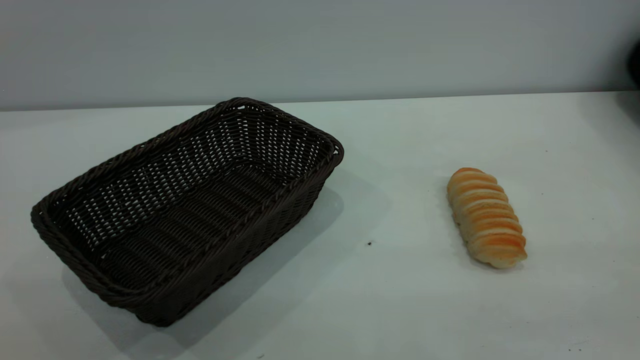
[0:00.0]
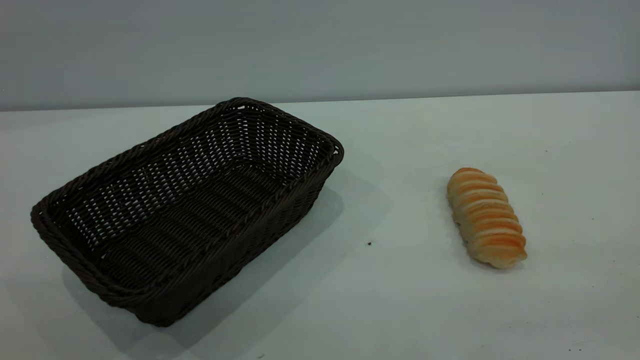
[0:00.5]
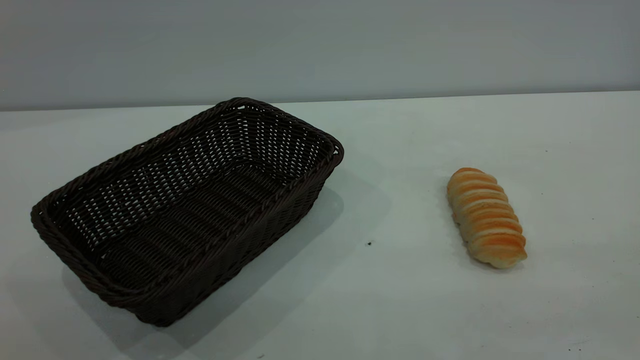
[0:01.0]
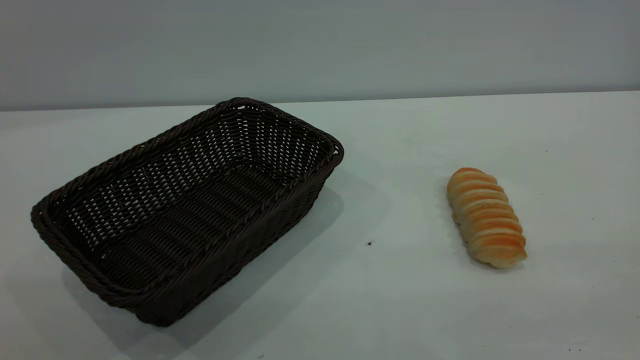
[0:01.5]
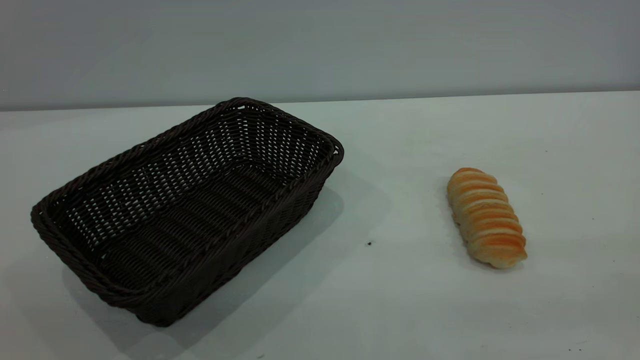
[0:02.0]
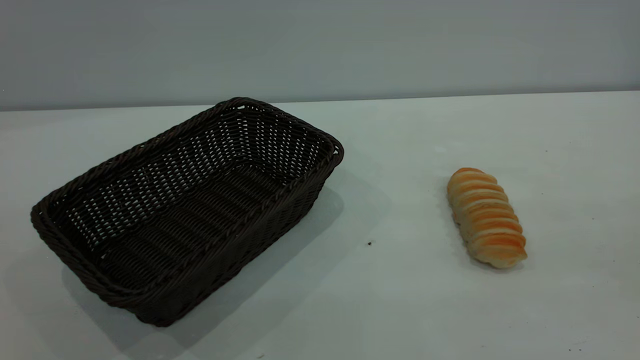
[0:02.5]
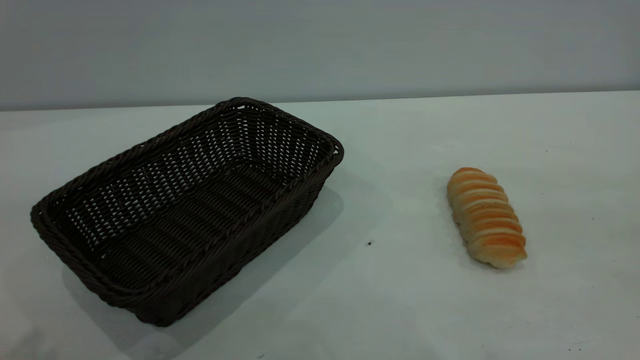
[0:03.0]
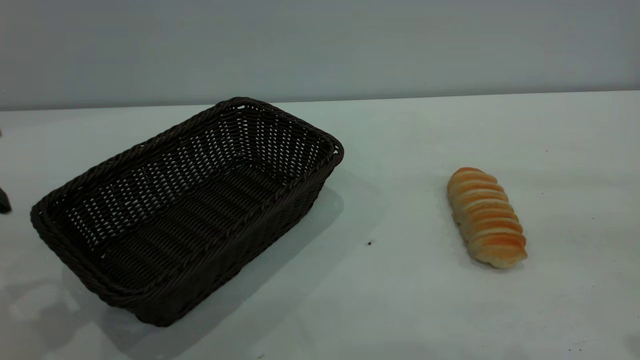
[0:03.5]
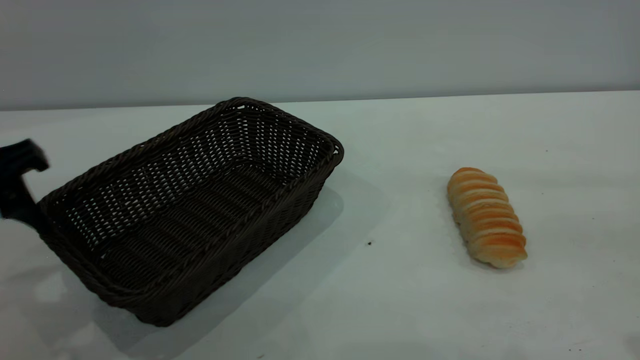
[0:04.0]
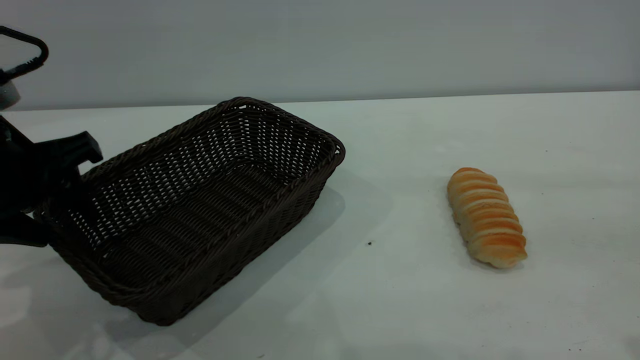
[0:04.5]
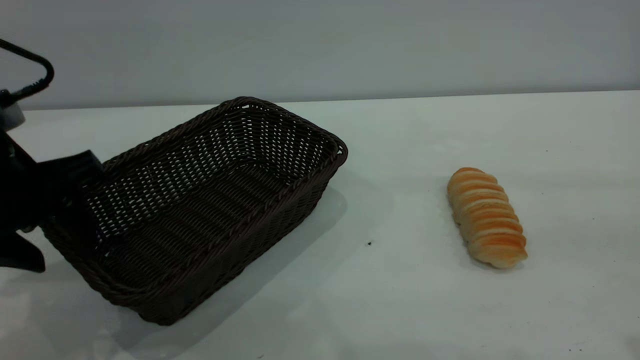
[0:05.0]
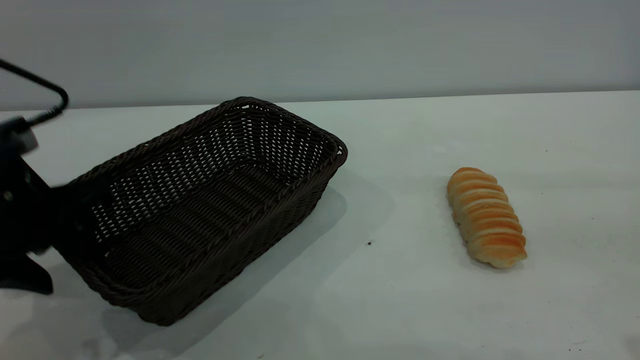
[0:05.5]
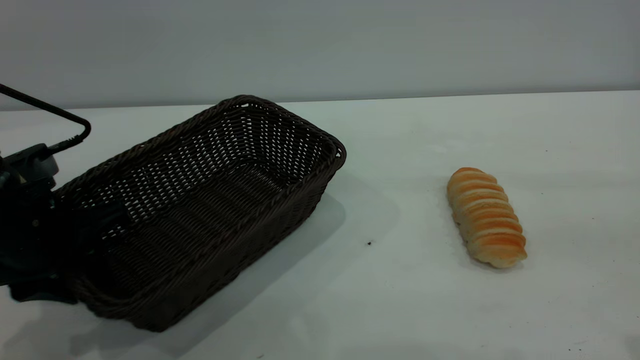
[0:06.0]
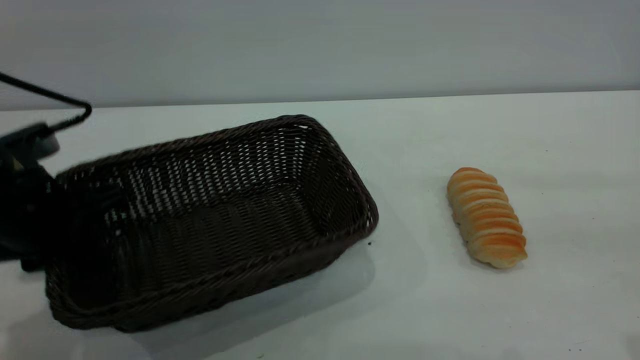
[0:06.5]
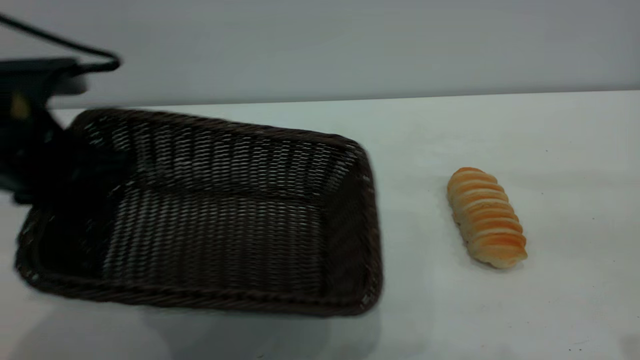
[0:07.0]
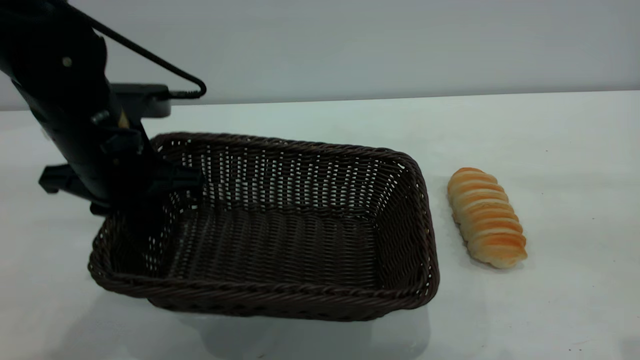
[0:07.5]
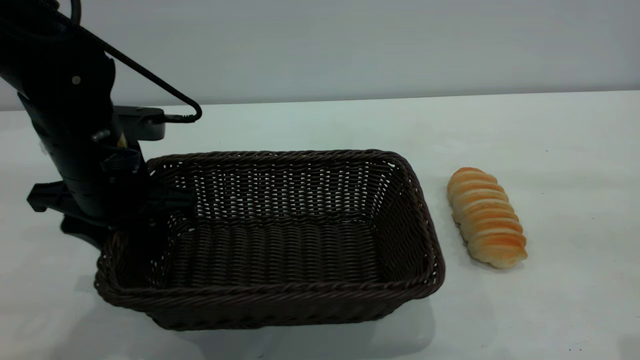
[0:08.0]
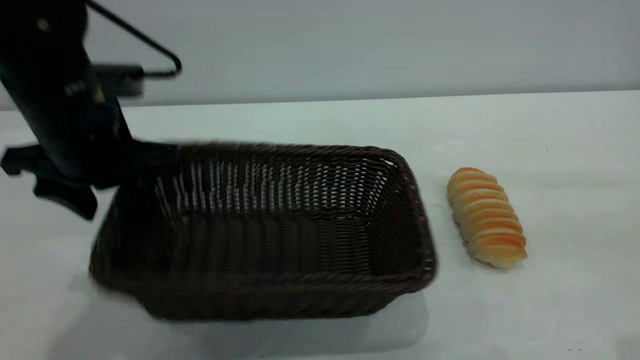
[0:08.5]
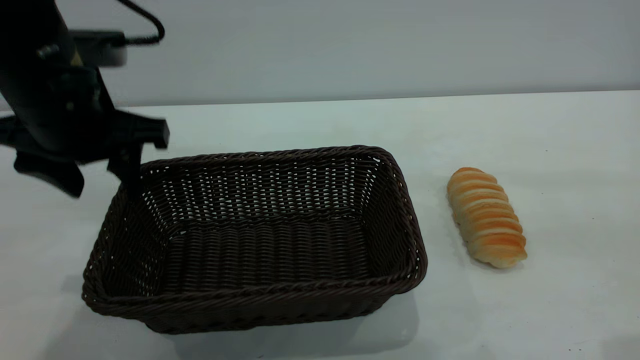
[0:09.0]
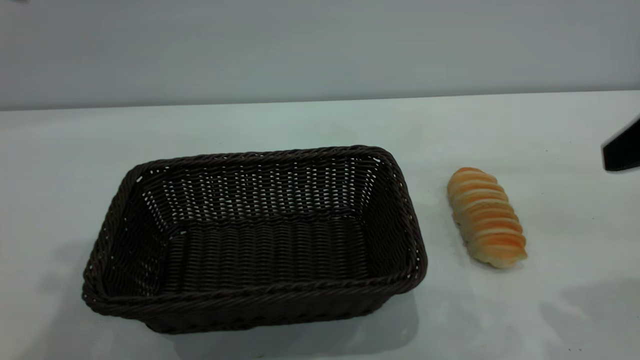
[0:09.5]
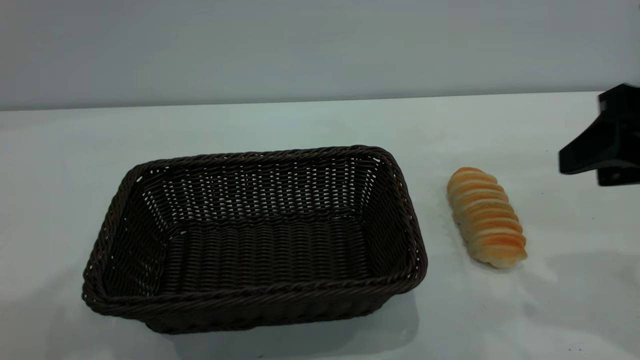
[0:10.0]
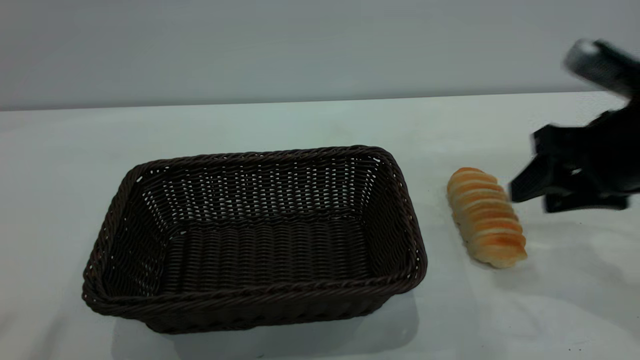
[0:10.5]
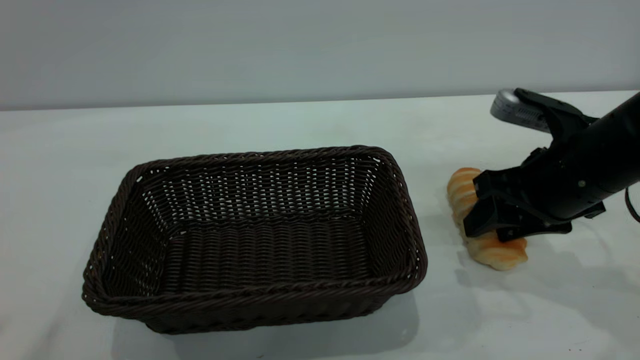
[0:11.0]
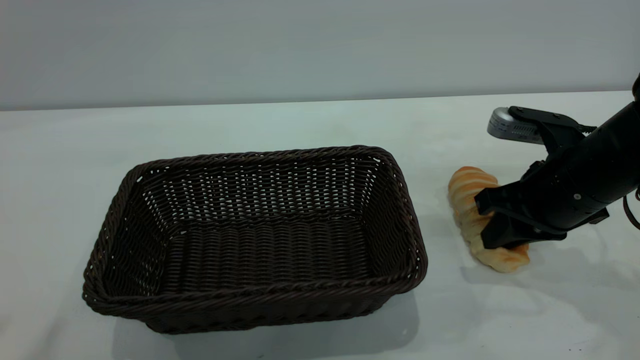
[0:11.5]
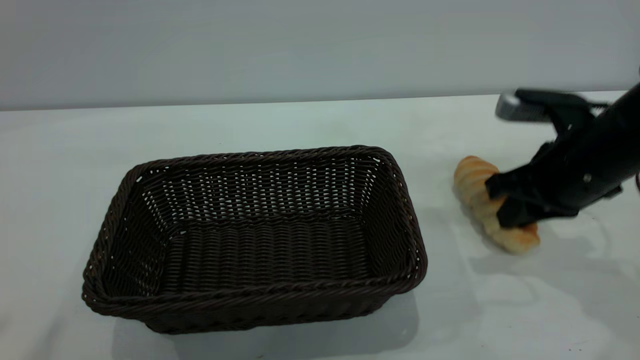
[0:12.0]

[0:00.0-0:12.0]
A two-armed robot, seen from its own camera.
Task of the whole recording: One hand grasps the black basket and places it in the middle of the table, while the other hand picks up the long bread and puts it into the black basket.
Step, 0:00.0 to 0:09.0: Move the basket to the center of view.
0:00.0 to 0:02.0: The grippers stay close to where they were, moving slightly.
0:02.0 to 0:04.0: The left gripper goes roughly 30 cm forward and downward.
0:04.0 to 0:06.0: The left gripper heads downward, covering approximately 5 cm, and closes up.
0:06.0 to 0:08.0: The left gripper travels to the right by approximately 5 cm, and opens its fingers.
0:08.0 to 0:10.0: The left gripper goes approximately 35 cm upward and backward. The right gripper shifts roughly 15 cm forward and downward.
0:10.0 to 0:12.0: The right gripper shifts some 10 cm downward and forward, and closes; the left gripper goes some 5 cm backward.

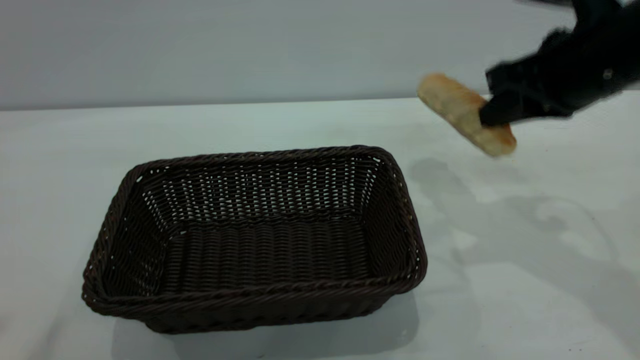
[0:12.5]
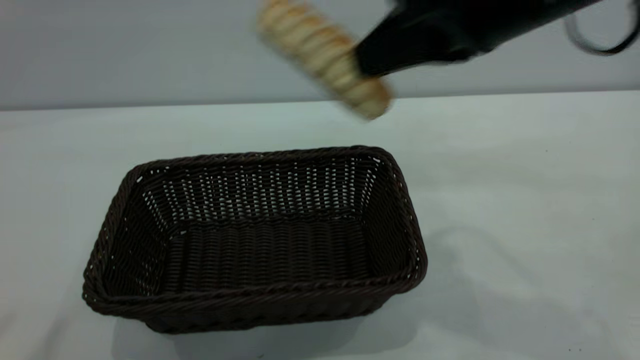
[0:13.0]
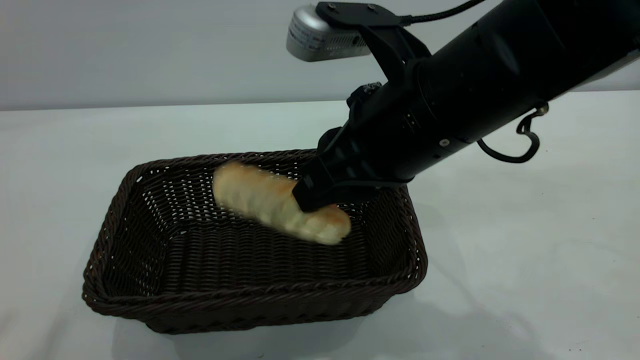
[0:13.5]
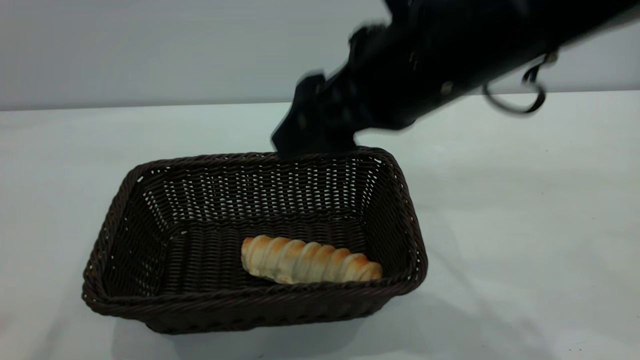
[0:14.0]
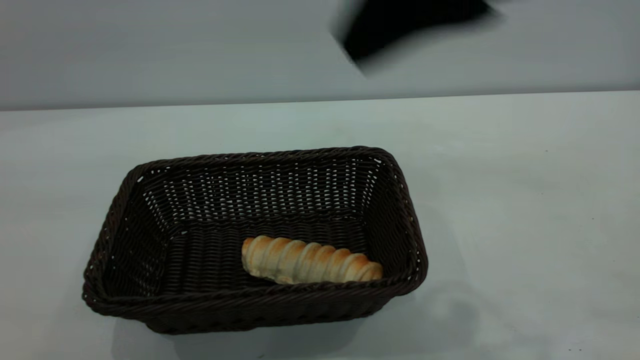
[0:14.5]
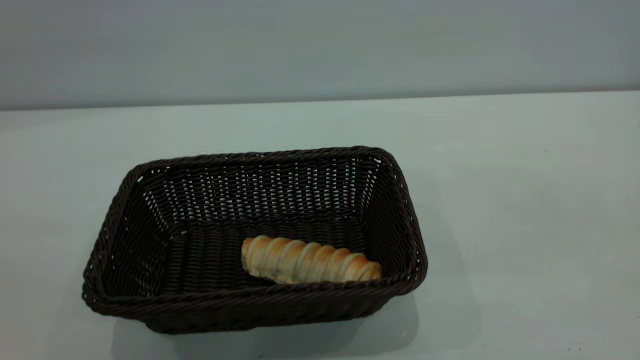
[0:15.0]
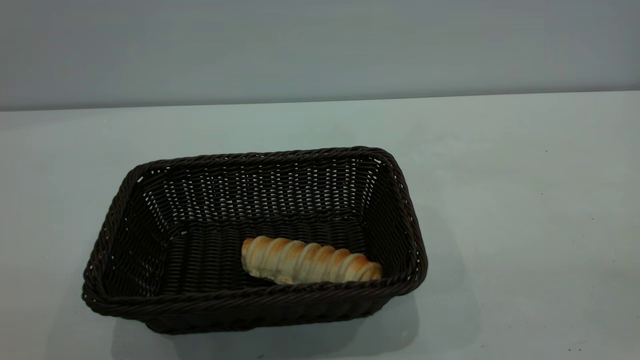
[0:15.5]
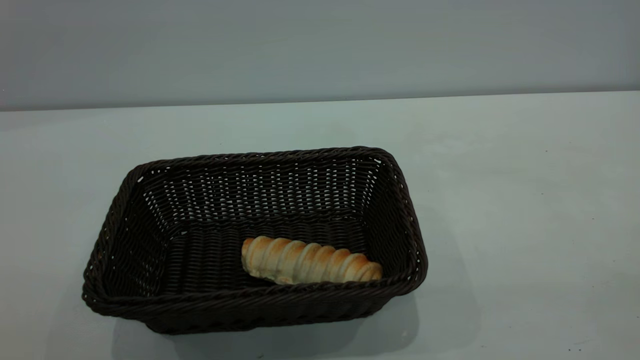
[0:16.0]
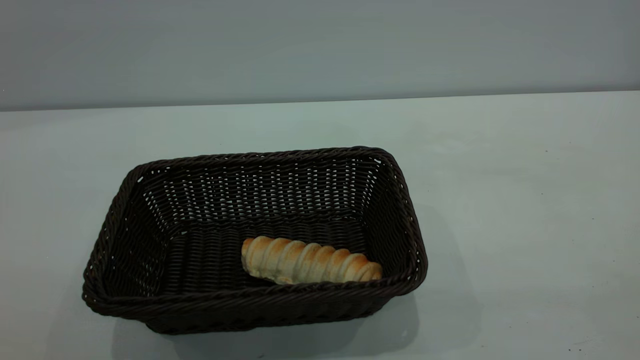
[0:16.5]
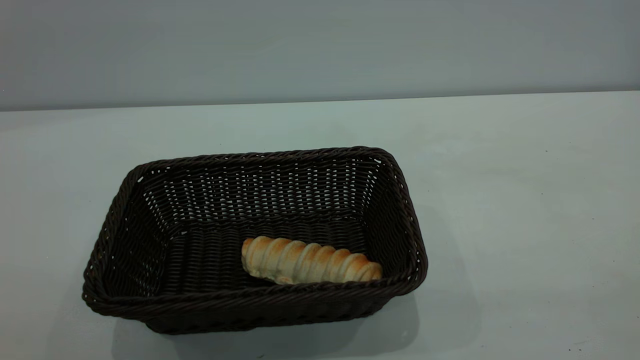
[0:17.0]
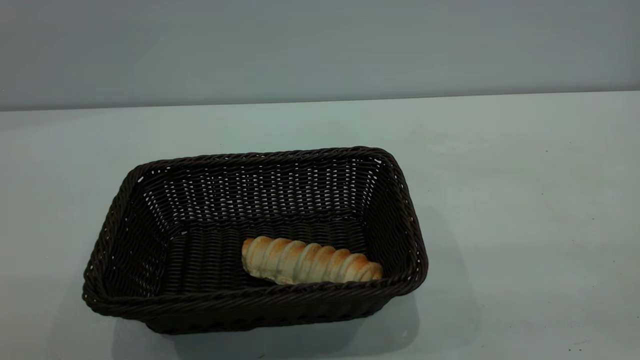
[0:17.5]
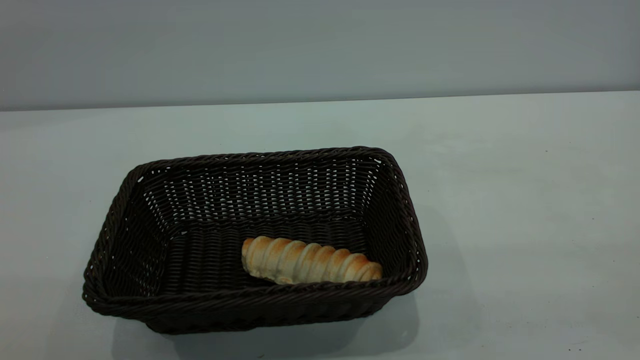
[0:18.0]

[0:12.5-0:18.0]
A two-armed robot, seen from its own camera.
Task of the whole recording: One hand grasps the black basket and places it in the middle of the table, while the other hand picks up the long bread and puts it into the black basket.
Step, 0:12.5 to 0:14.0: place the bread into the basket.
0:12.5 to 0:14.5: The left gripper heads backward, covering some 10 cm, while the right gripper is displaced backward, upward and to the left by some 20 cm, and opens up.
0:14.5 to 0:16.0: The left gripper moves downward and backward, about 15 cm, while the right gripper is displaced backward and to the right by some 25 cm.

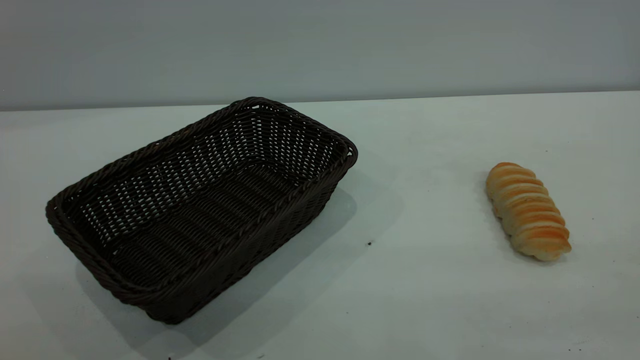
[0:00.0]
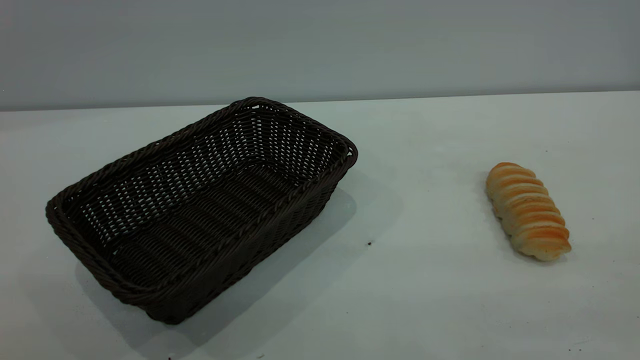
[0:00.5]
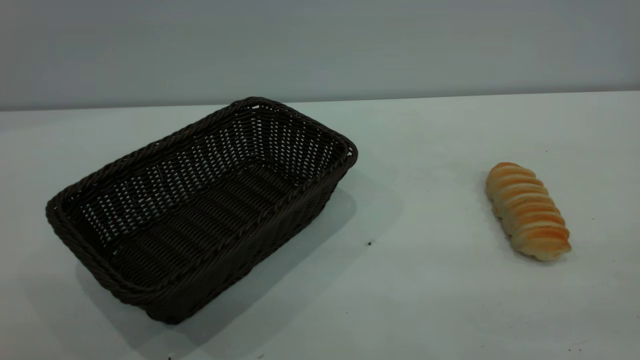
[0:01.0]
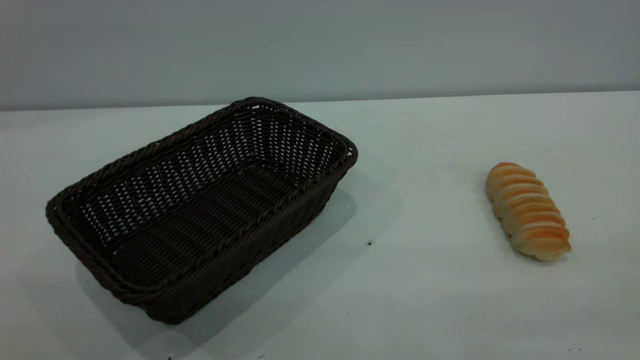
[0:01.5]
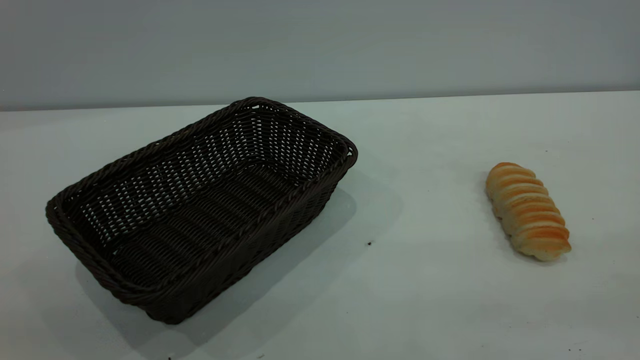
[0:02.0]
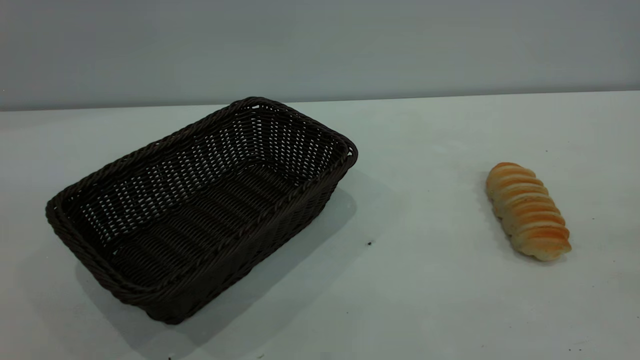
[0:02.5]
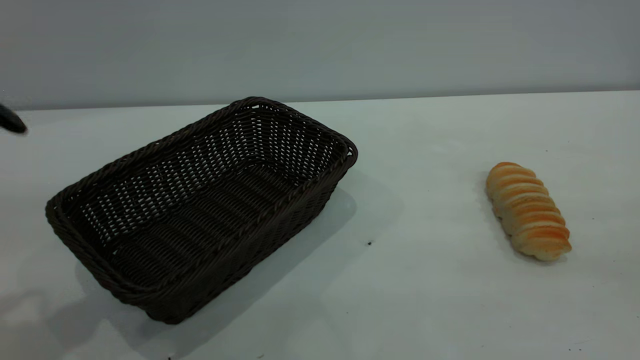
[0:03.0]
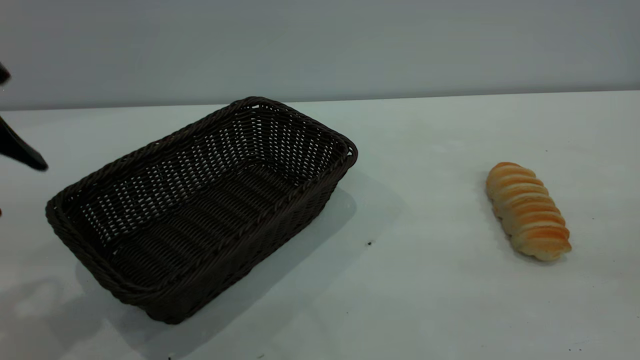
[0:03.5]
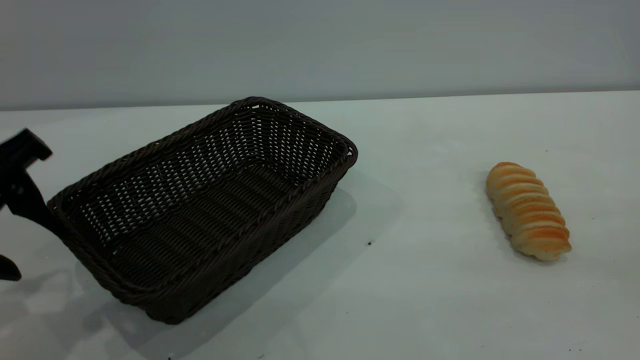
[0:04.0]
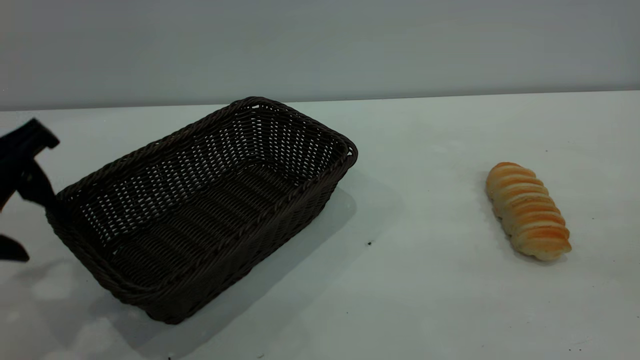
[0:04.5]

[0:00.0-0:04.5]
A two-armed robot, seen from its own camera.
Task of the whole recording: One hand grasps the black basket and places it in the middle of the table, while the other hand picks up the long bread and puts it into the black basket.
0:02.0 to 0:04.5: The left gripper moves forward and downward, some 30 cm.
